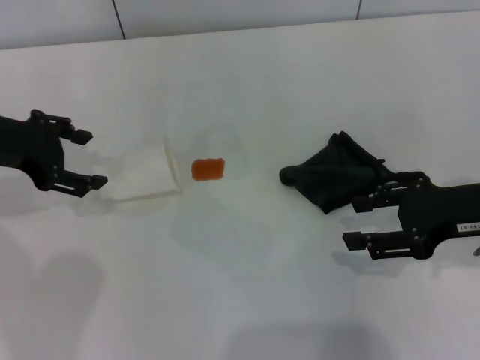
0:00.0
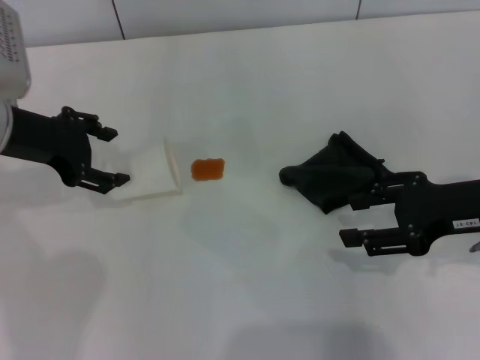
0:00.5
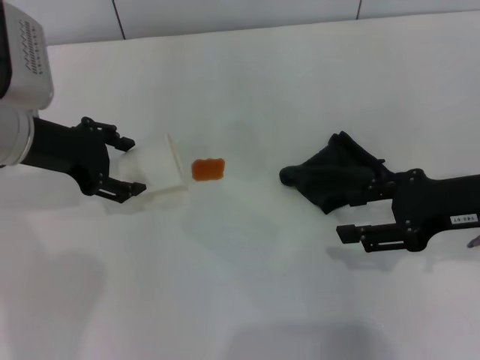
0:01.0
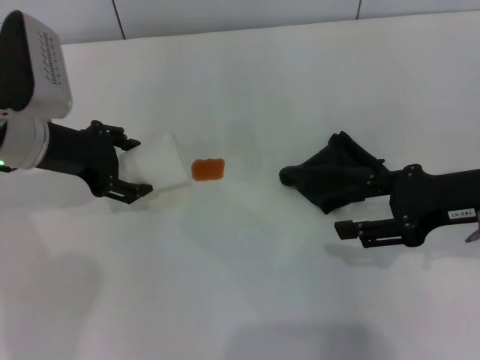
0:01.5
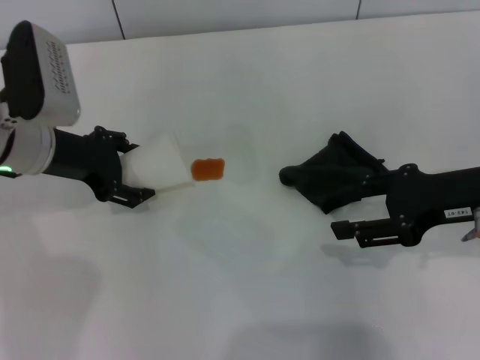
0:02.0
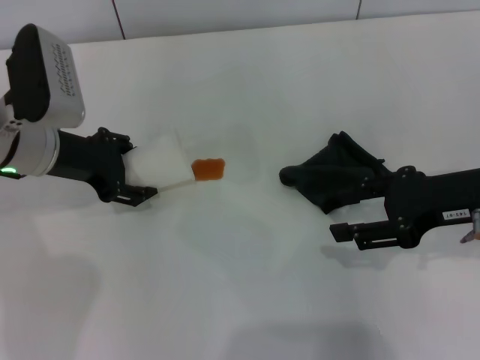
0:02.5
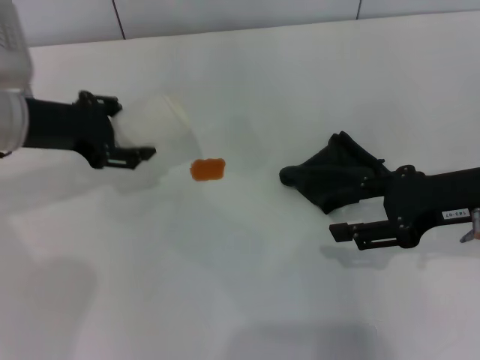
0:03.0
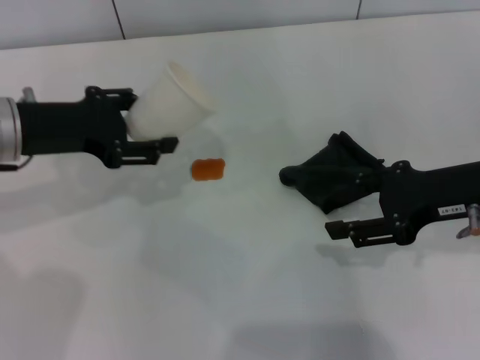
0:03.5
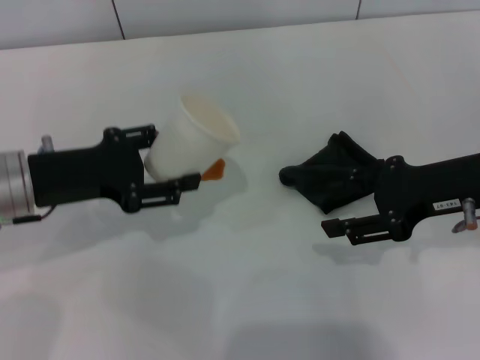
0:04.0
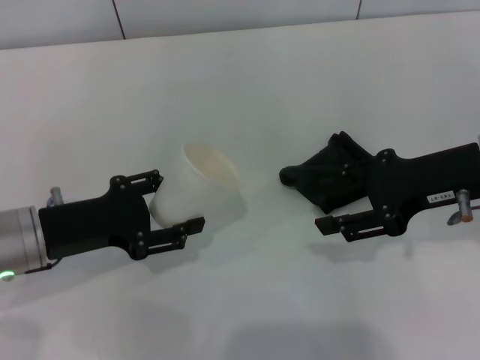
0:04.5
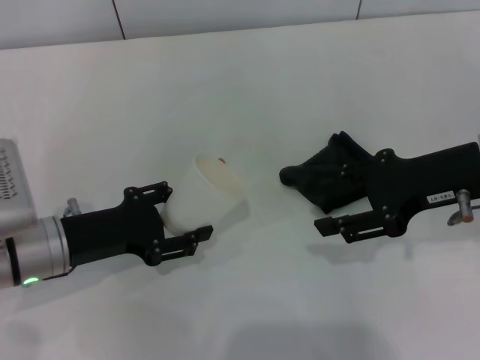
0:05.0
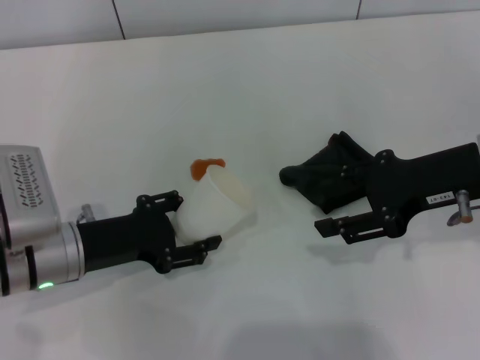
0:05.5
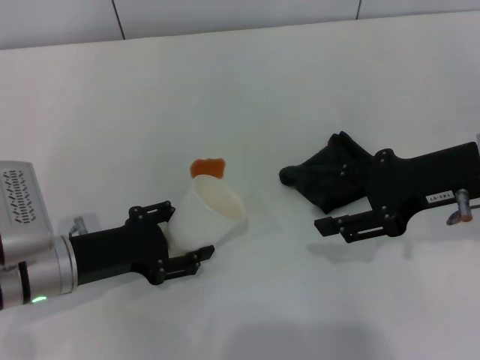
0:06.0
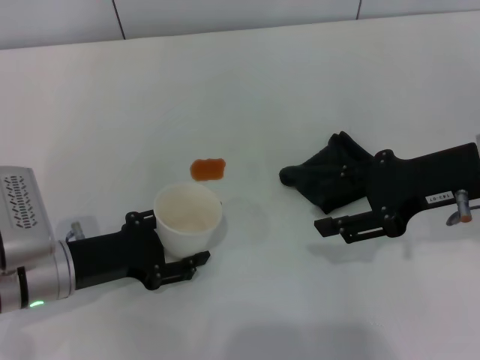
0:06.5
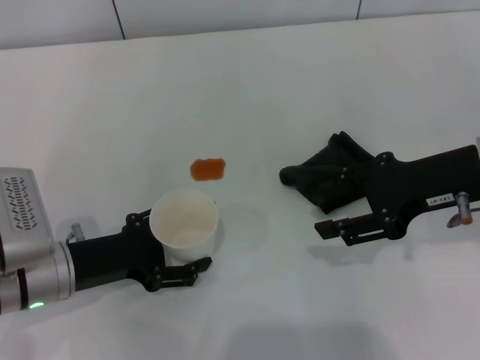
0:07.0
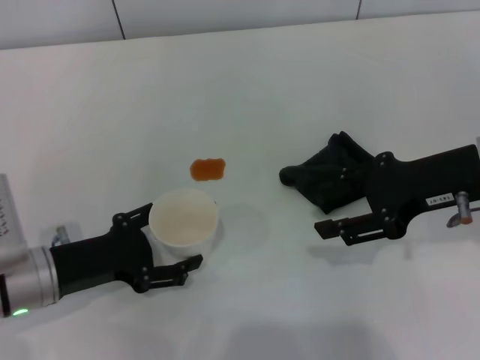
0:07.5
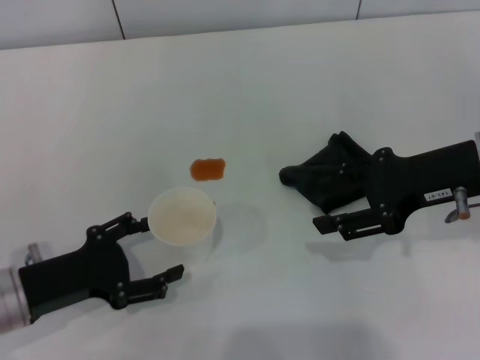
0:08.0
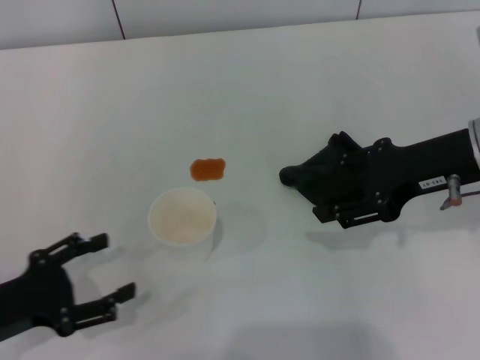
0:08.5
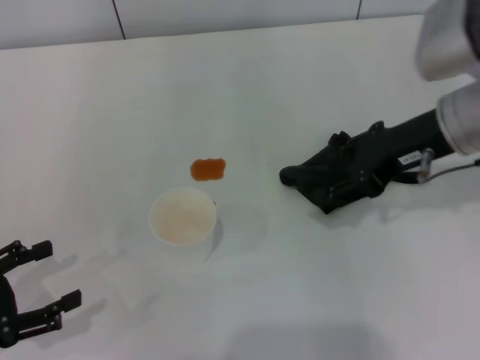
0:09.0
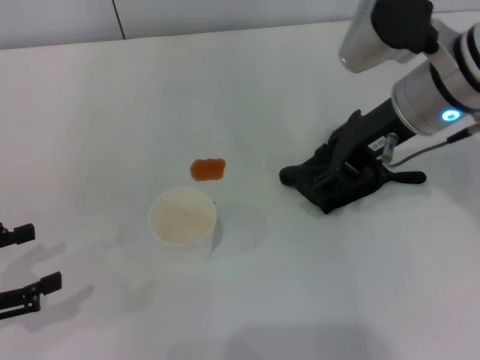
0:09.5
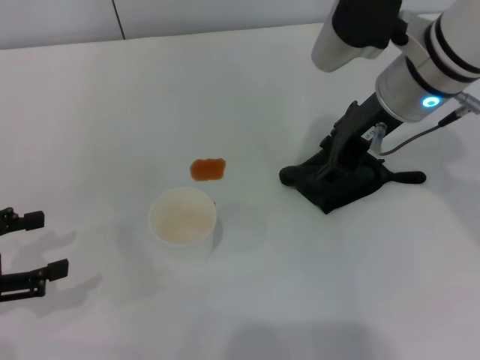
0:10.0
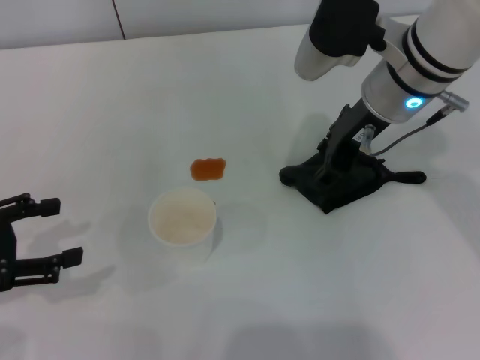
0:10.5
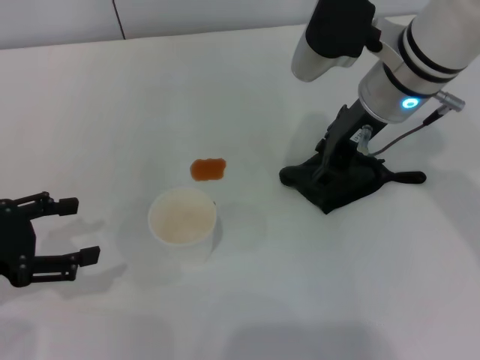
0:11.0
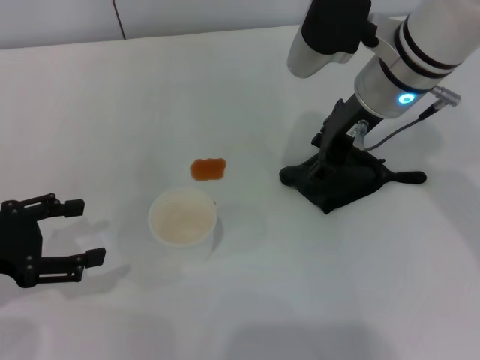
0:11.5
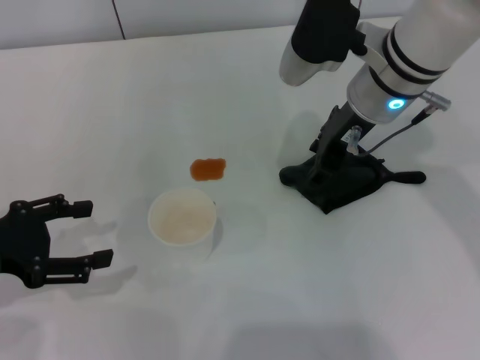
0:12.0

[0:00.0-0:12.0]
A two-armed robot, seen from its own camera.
Step, 0:00.0 to 0:02.0: Grasp the paper cup with the left gripper.
Step, 0:02.5 to 0:08.0: Stand the paper cup upright with the left gripper.
0:00.0 to 0:02.0: The left gripper moves to the right and downward, some 5 cm.
0:02.0 to 0:04.0: The left gripper moves backward, about 5 cm, and closes.
0:04.0 to 0:06.0: The left gripper travels downward by approximately 10 cm.
0:06.0 to 0:08.0: The left gripper changes place by approximately 5 cm, and opens up.
0:08.0 to 0:10.0: The left gripper goes roughly 10 cm to the left and upward. Meanwhile the right gripper heads to the left and forward, covering roughly 10 cm.
0:10.0 to 0:12.0: The grippers move only a little.

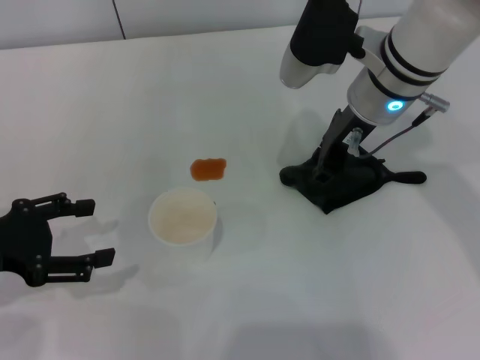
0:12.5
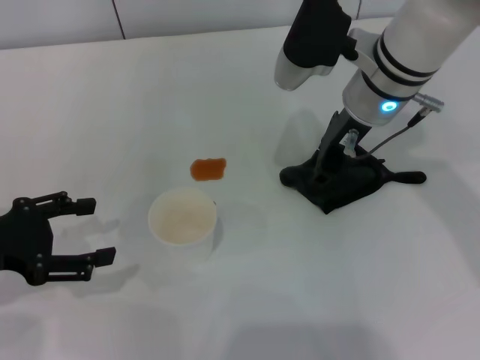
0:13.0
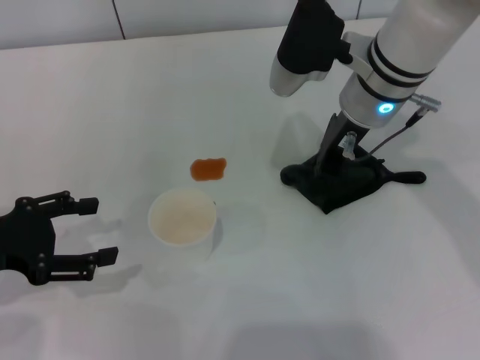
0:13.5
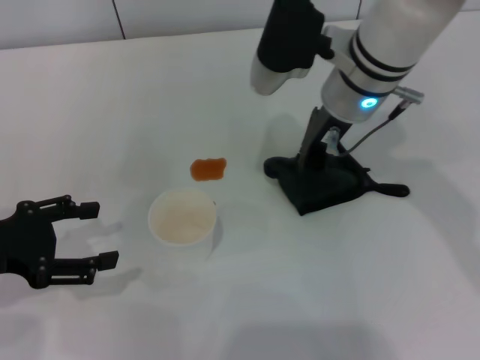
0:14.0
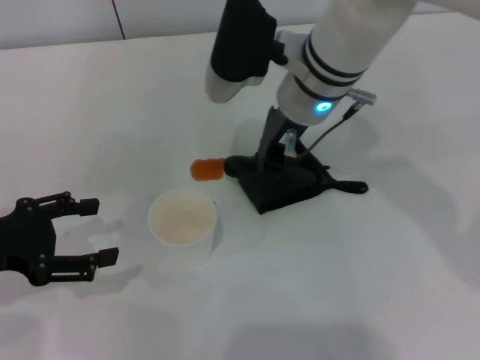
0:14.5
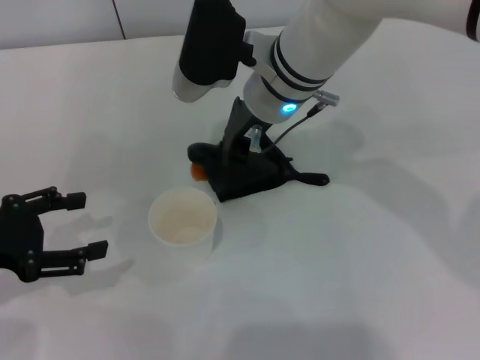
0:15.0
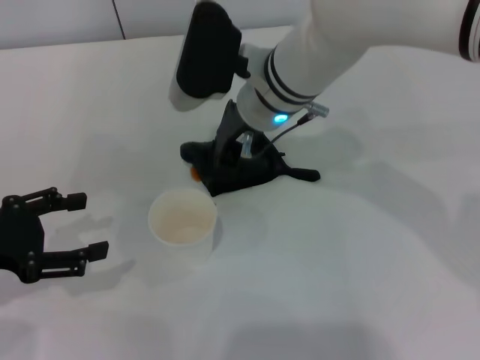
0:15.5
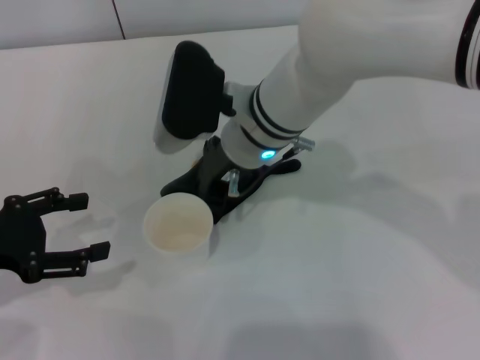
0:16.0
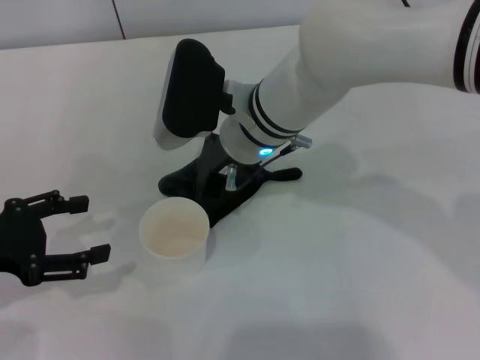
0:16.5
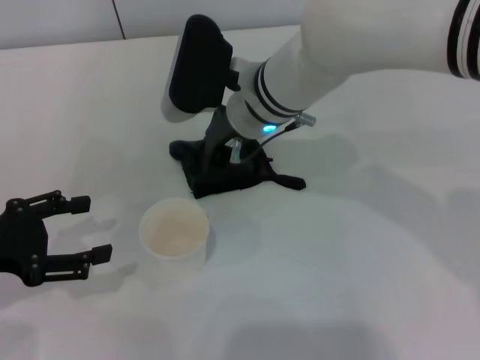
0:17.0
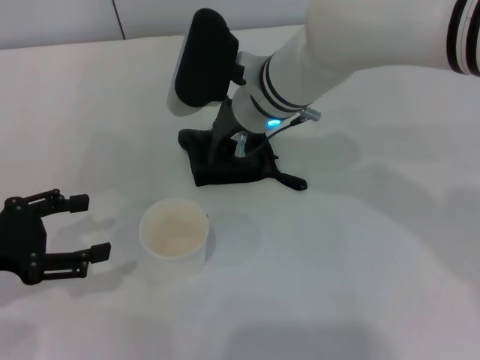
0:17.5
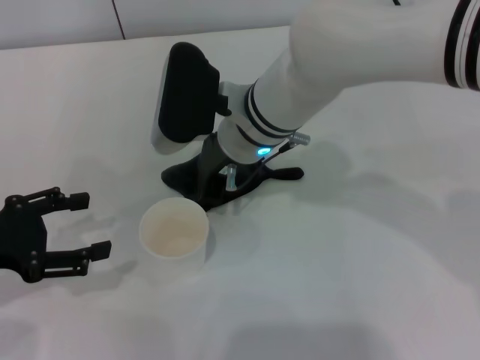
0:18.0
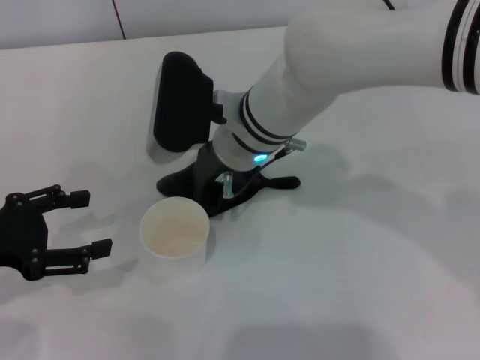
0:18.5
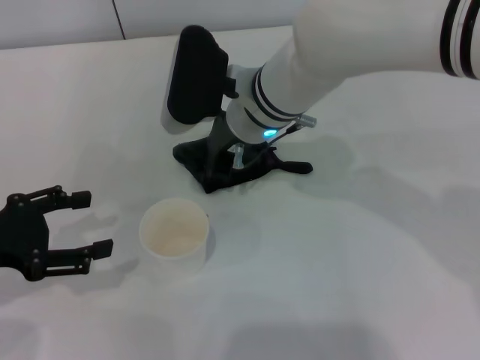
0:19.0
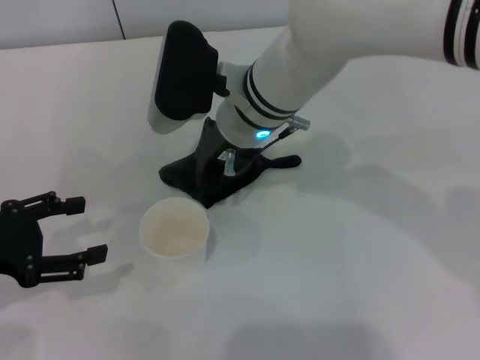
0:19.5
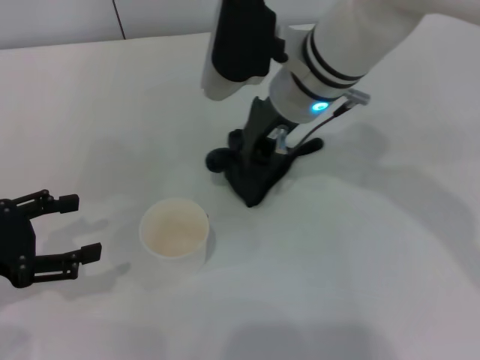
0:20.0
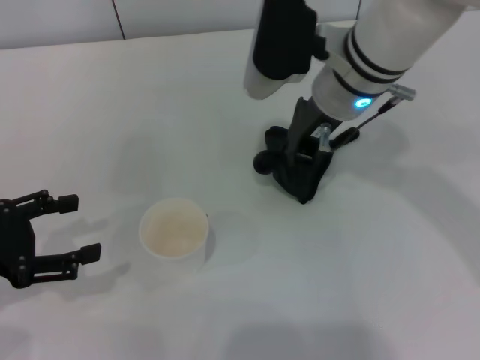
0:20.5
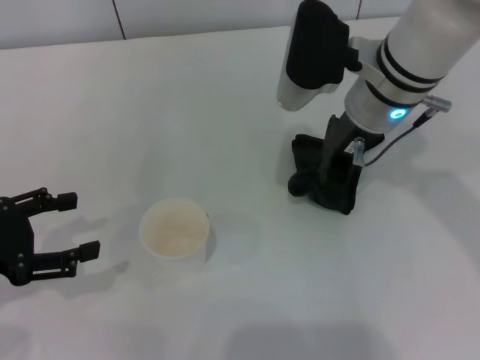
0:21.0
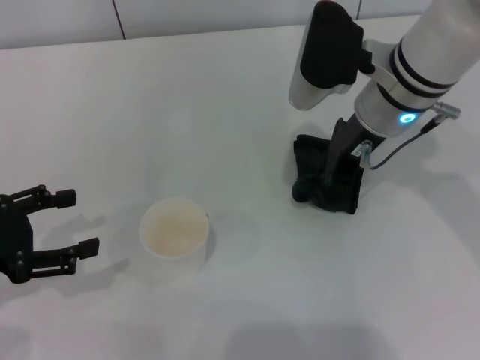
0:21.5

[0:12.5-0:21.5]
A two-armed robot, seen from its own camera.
Step, 0:14.0 to 0:20.0: Wipe the stains off the table with the right gripper.
0:12.5 to 0:14.5: The right gripper goes some 5 cm to the left, and closes up.
0:14.5 to 0:17.0: The right gripper changes place by approximately 5 cm.
0:17.0 to 0:19.5: There are only small adjustments of the grippers.
0:19.5 to 0:21.5: The right gripper moves to the right, approximately 10 cm.

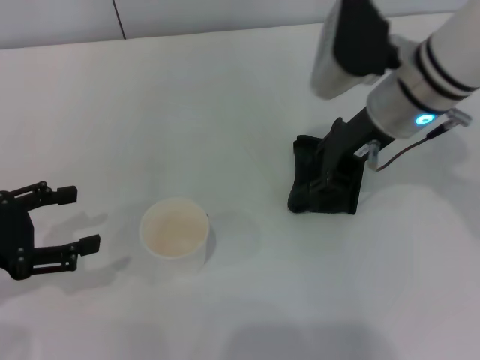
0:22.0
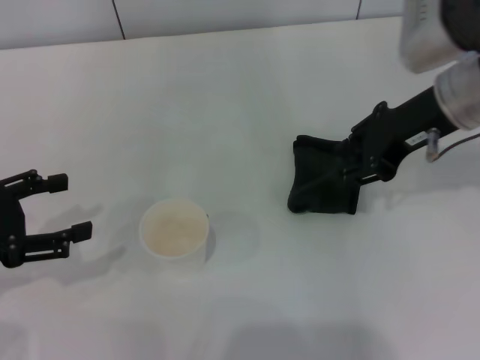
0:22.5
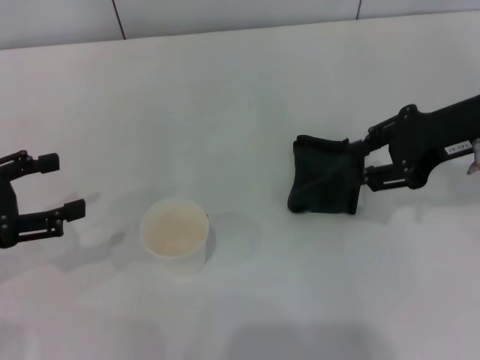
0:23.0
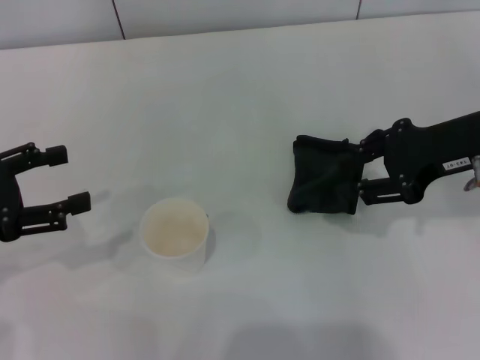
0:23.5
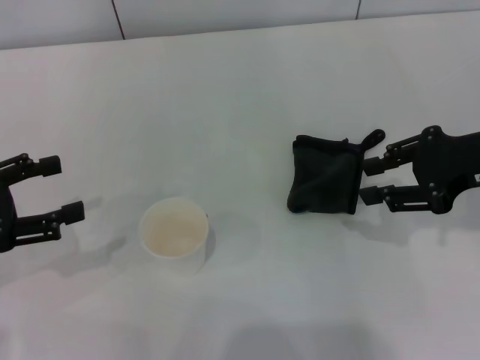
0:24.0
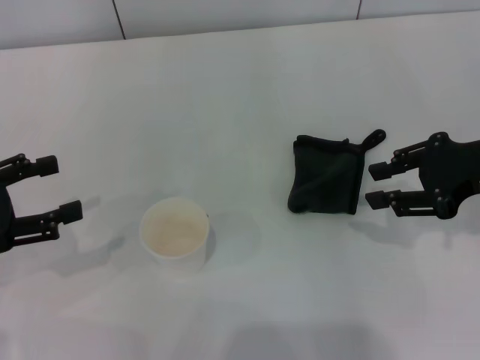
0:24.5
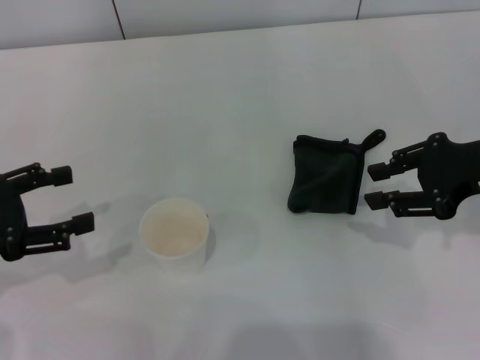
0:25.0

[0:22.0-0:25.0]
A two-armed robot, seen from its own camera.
0:22.0 to 0:23.5: The right gripper goes about 10 cm to the right and backward.
0:23.5 to 0:25.0: The grippers make only small movements.
